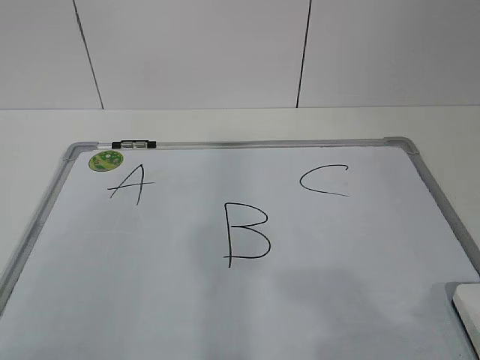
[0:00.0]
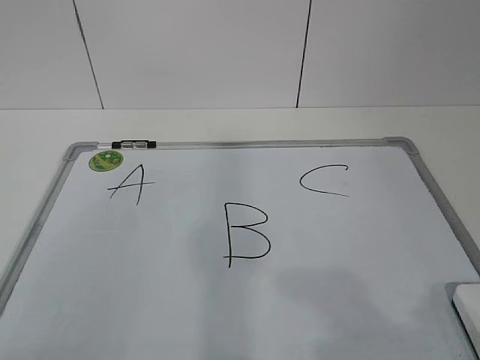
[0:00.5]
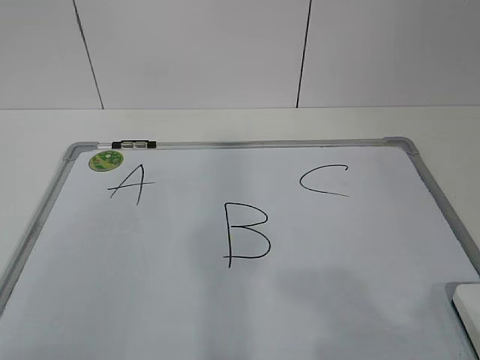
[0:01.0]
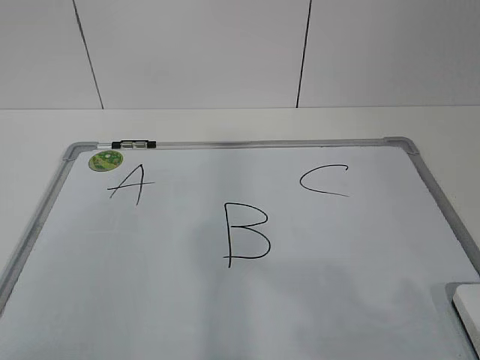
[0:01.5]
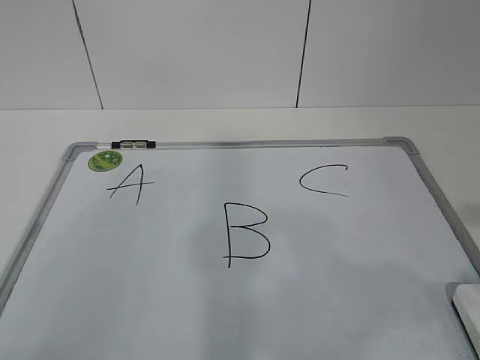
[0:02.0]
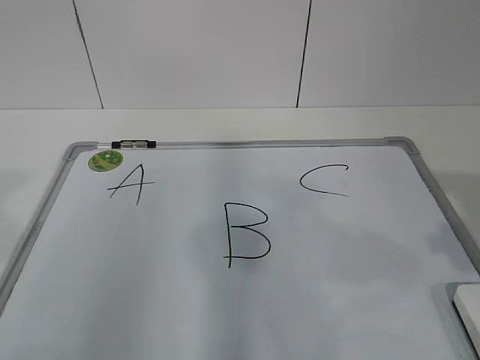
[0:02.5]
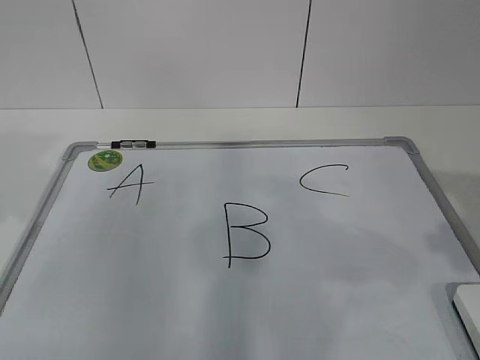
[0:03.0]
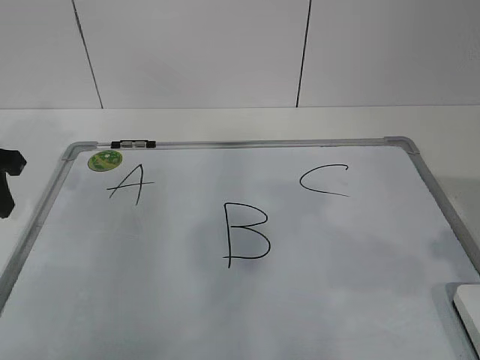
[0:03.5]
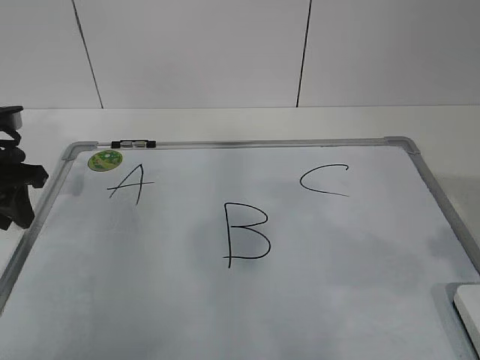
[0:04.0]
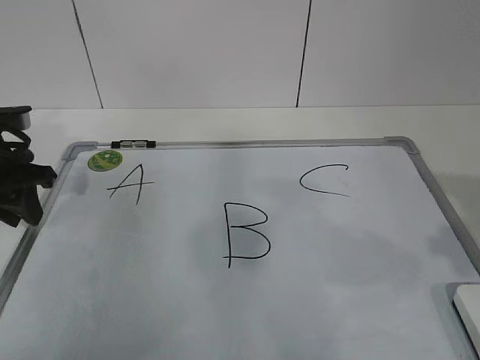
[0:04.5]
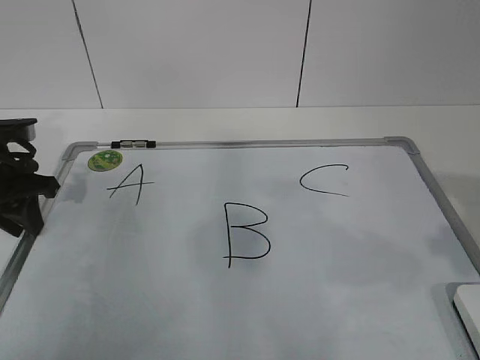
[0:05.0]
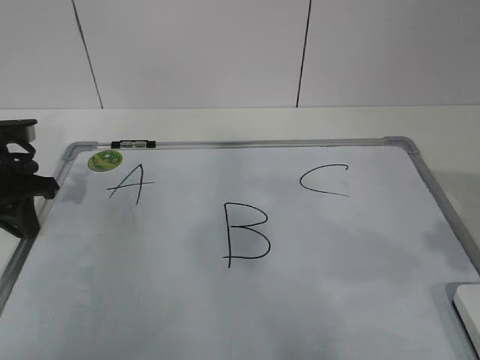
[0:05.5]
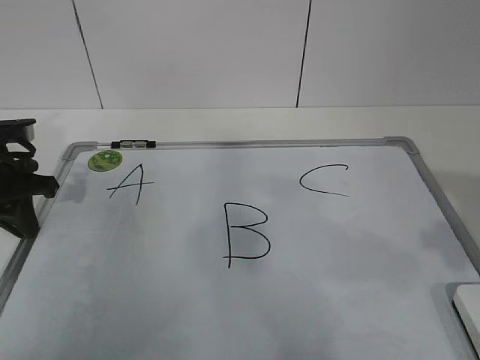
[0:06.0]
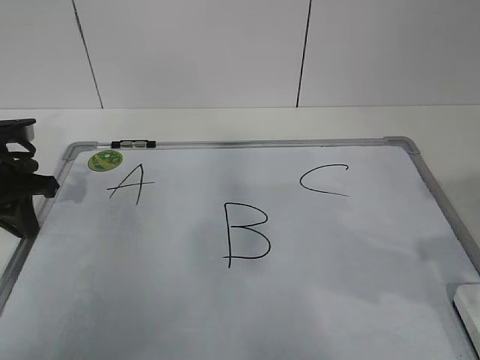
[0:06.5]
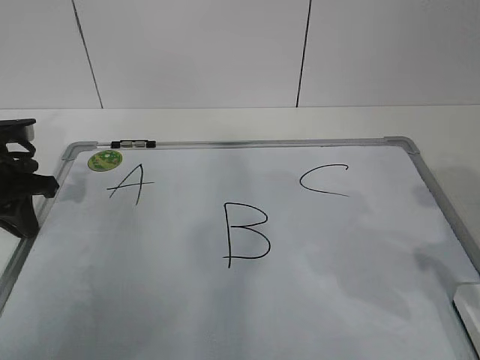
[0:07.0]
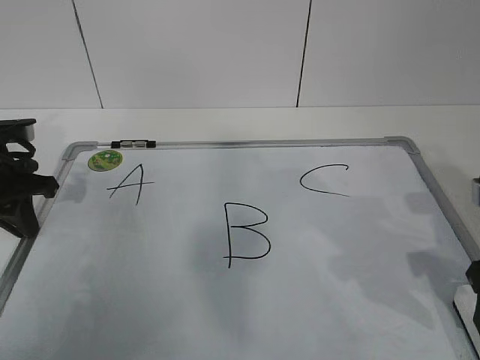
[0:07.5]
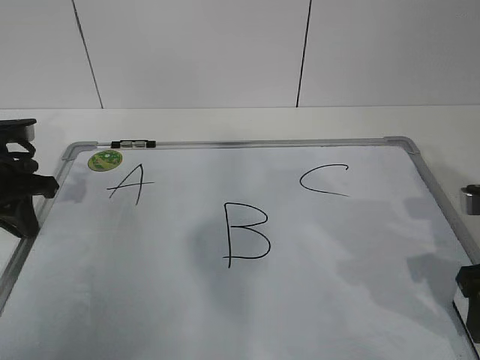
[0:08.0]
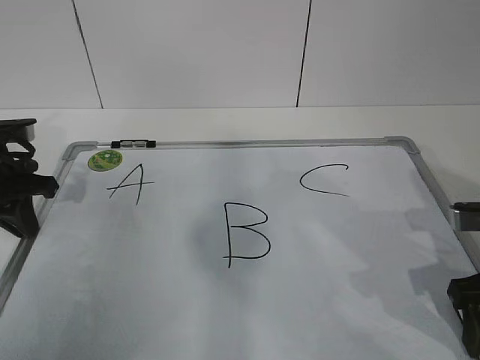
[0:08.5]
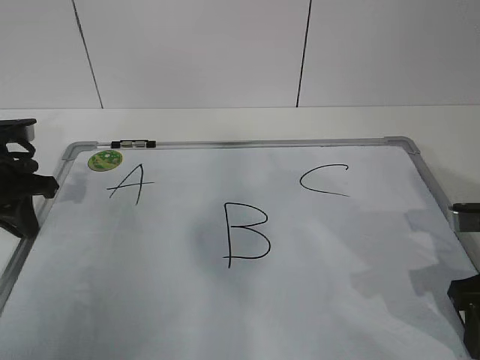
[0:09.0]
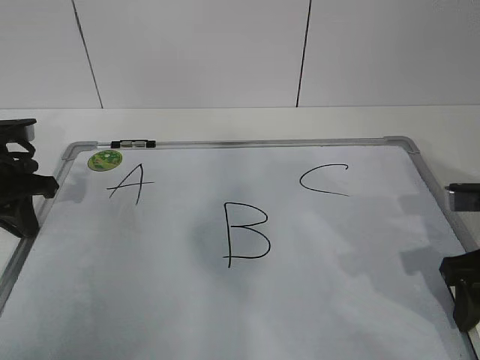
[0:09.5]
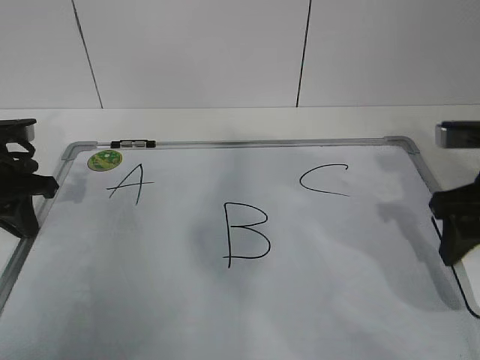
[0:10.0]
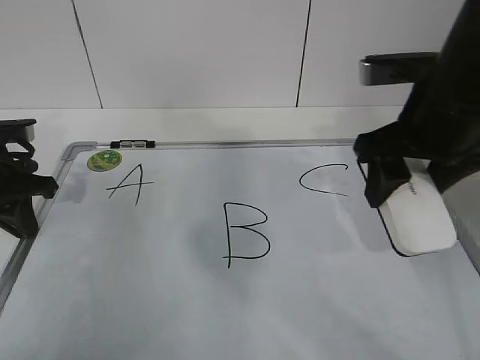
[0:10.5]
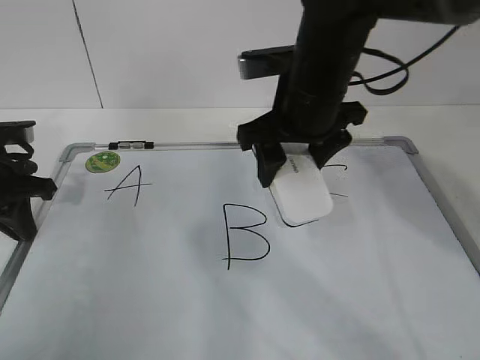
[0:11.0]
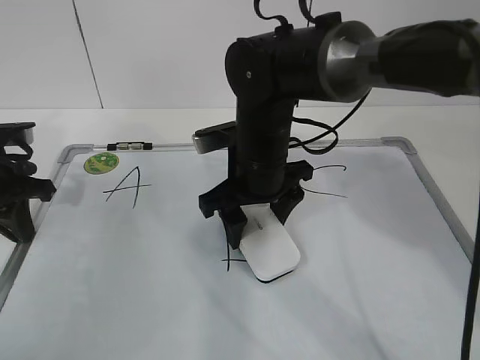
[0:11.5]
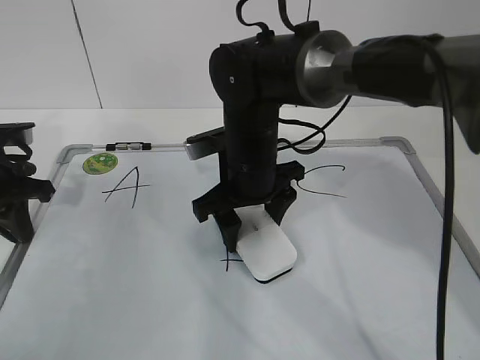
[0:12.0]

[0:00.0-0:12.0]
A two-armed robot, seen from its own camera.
Task of the whole recording: pick up the eraser on the blackboard and erase the letter "B".
Step, 0:00.0 to 0:04.5: Hold the drawing board steady with your left hand.
0:02.0 to 0:04.0: The left gripper shifts about 30 cm forward. The right gripper travels forward by roughly 5 cm.
0:04.0 to 0:06.0: The left gripper closes its fingers.
0:06.0 to 0:08.0: The right gripper travels downward and forward by some 15 cm, and opens up.
0:08.0 to 0:10.0: The right gripper is displaced forward by some 5 cm, and closes up.
0:10.0 to 0:12.0: The right gripper is displaced to the left by about 25 cm.

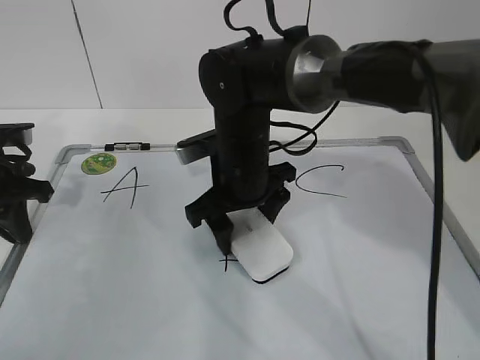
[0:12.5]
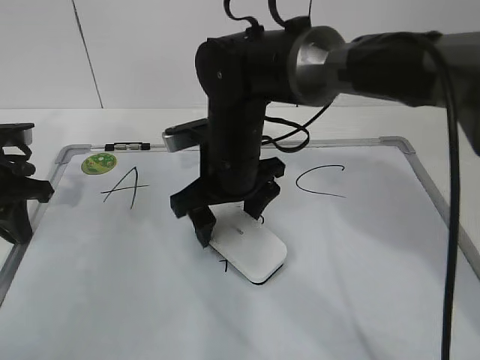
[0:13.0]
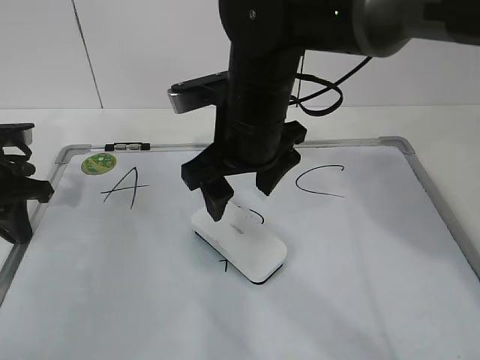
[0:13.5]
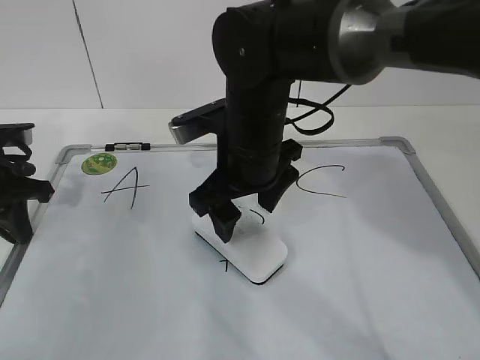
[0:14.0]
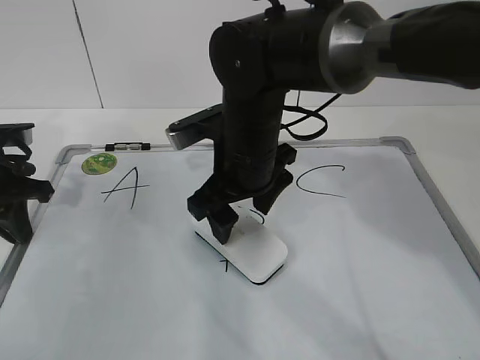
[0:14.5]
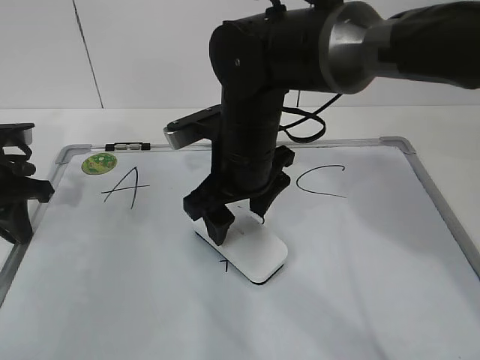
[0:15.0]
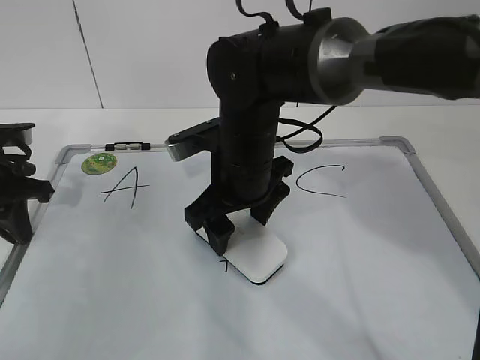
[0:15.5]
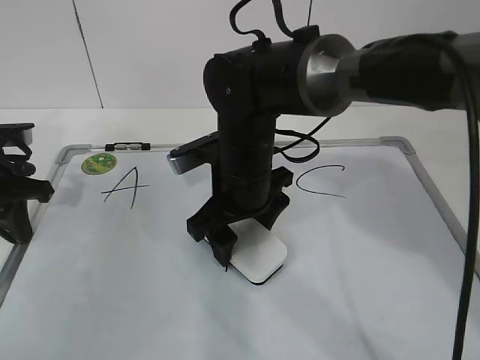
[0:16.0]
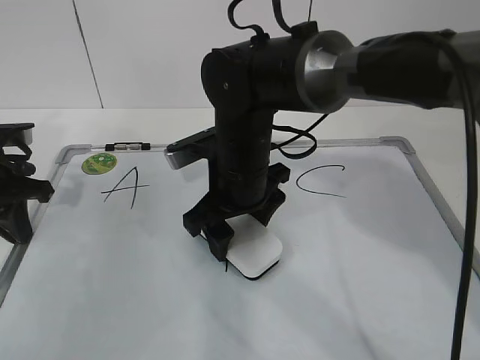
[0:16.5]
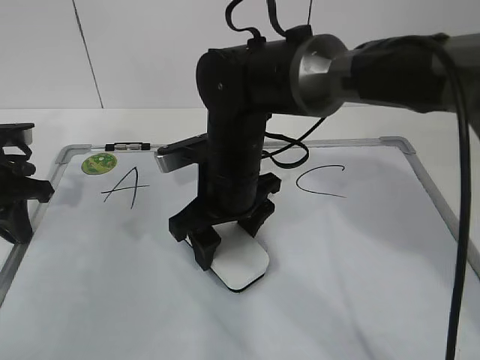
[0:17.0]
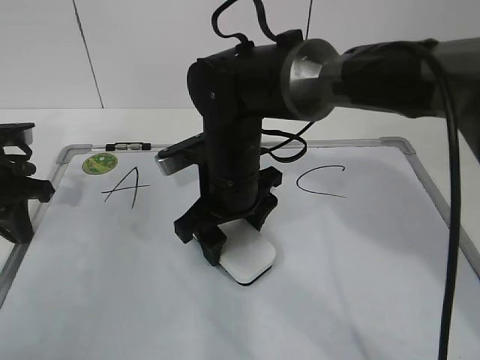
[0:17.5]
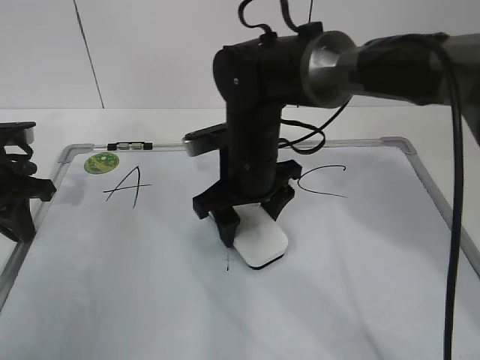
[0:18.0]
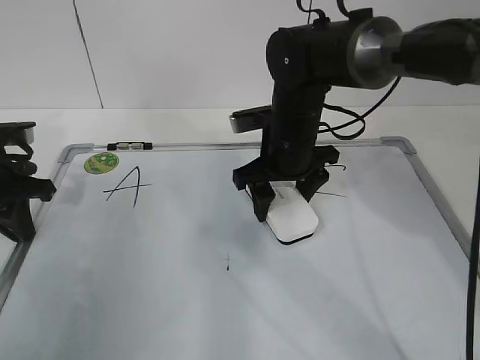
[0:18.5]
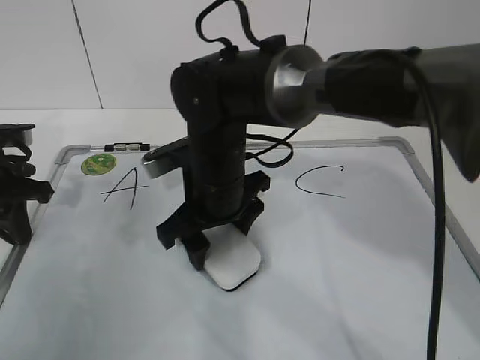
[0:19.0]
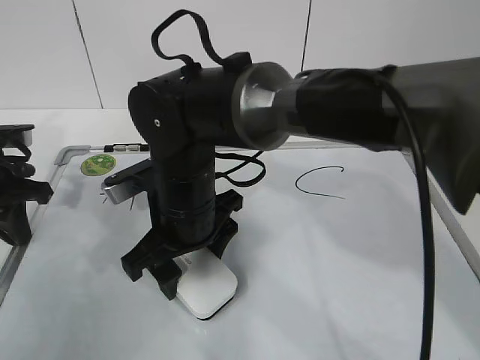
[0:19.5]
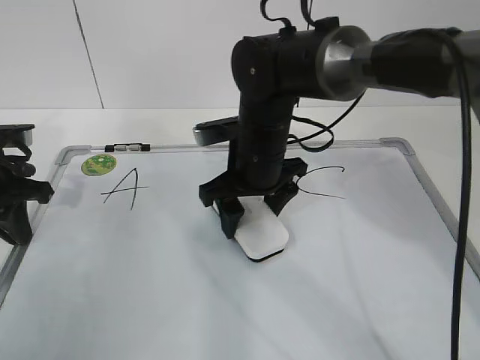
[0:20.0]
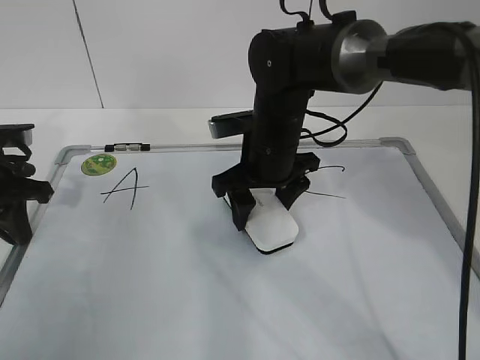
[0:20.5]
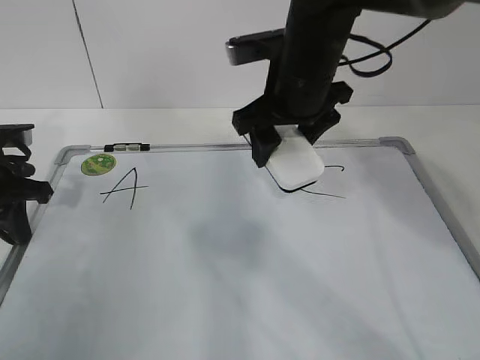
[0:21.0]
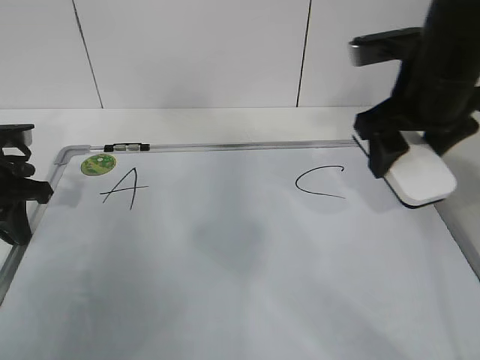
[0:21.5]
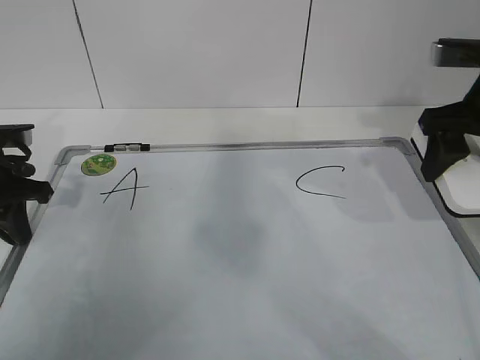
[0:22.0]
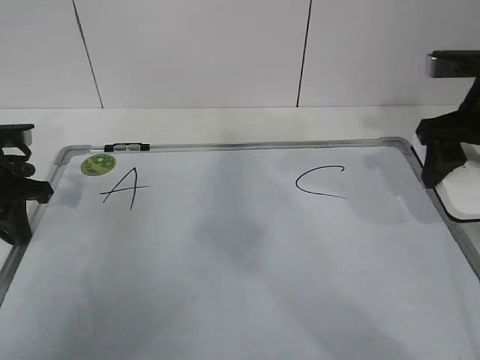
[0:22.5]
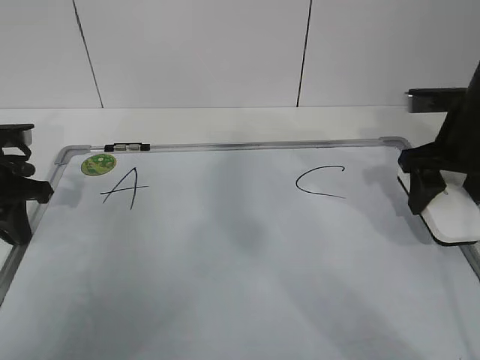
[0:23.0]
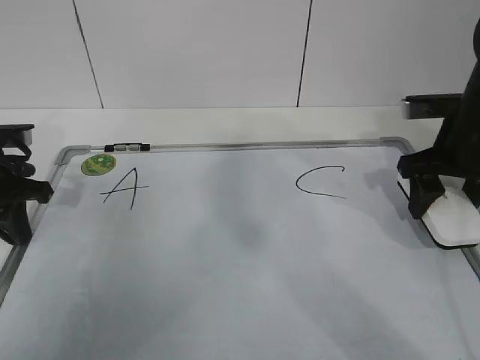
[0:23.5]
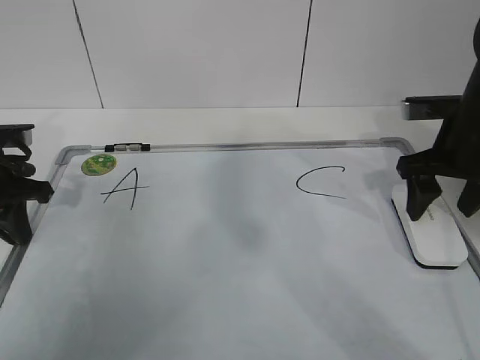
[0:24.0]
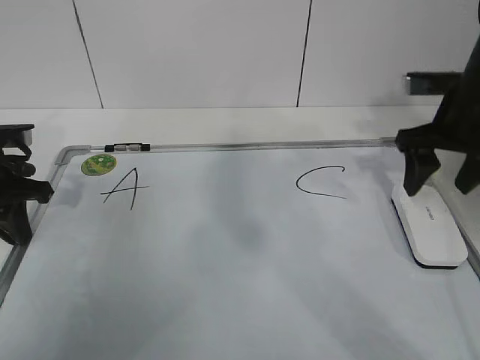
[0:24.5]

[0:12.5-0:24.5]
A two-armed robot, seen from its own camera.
Task of the whole recording: pick up the eraser on the blackboard and erase the letter "B".
Step, 0:12.5 to 0:17.0: Erase the letter B with your right hand.
Step, 0:17.5 to 0:19.5: Put down the eraser with your right hand.
0:12.5 to 0:14.5: The right gripper opens.
0:14.5 to 0:16.5: The right gripper closes its fingers.
0:16.5 to 0:18.5: The right gripper is displaced to the right and forward by roughly 10 cm.
0:18.5 to 0:20.5: The right gripper reaches roughly 15 cm to the left, then returns.
0:20.5 to 0:22.5: The right gripper heads to the right and upward, covering some 25 cm.
0:22.5 to 0:24.5: The right gripper opens its fingers.

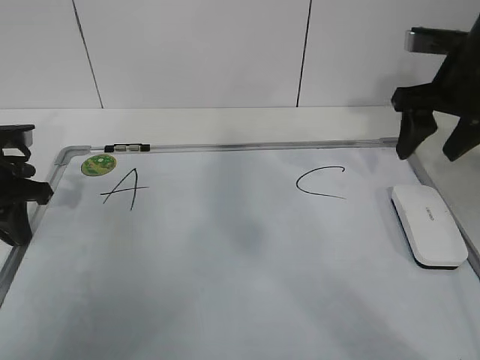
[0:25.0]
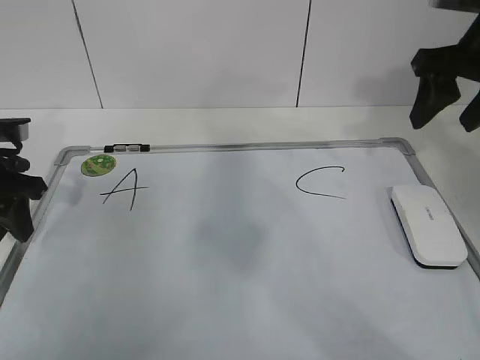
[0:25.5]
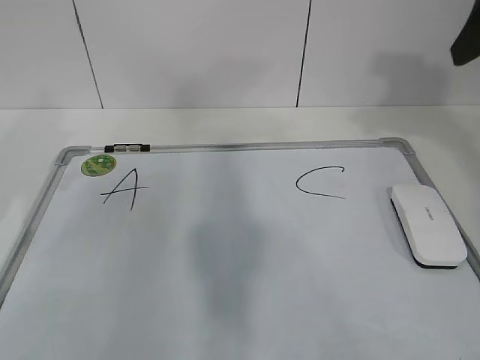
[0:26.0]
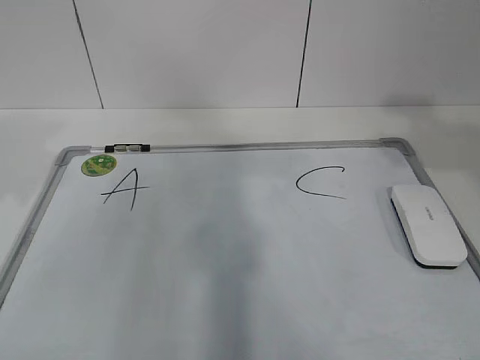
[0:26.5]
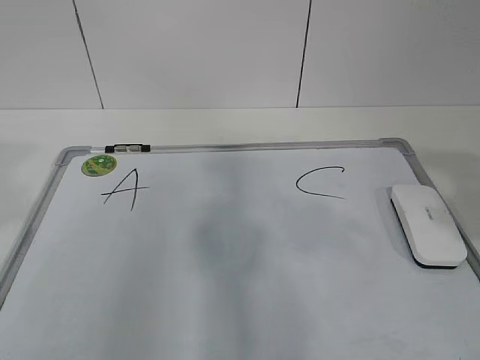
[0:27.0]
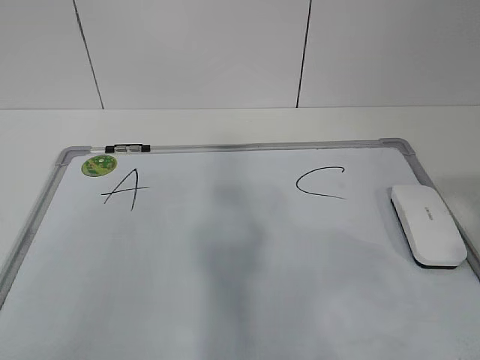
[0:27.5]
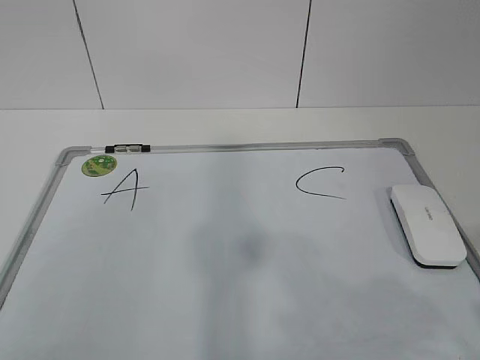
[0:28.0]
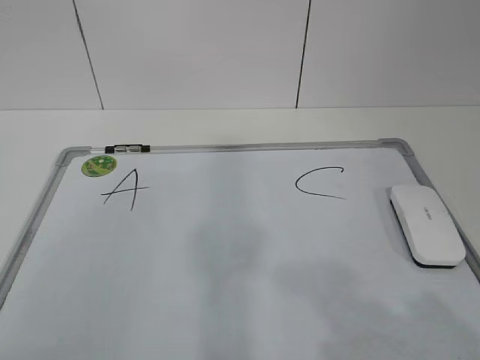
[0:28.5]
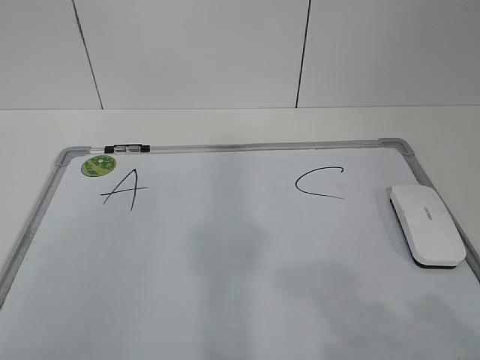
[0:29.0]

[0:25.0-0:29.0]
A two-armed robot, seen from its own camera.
Task of the whole recording: pick up the eraser on the blackboard and erase the letter "B".
0:25.0 to 0:27.0: The right gripper shifts about 30 cm backward. The left gripper shifts about 30 cm backward and upward, and opens its fingers.
